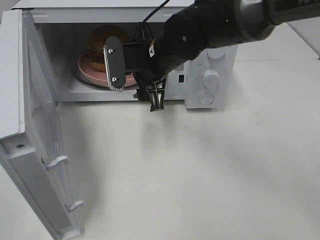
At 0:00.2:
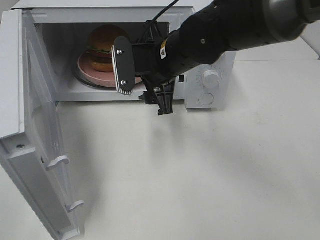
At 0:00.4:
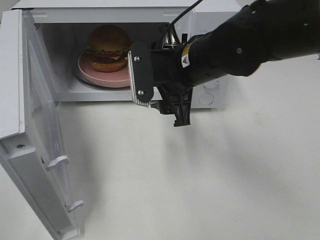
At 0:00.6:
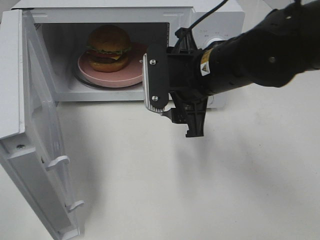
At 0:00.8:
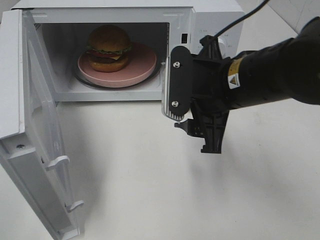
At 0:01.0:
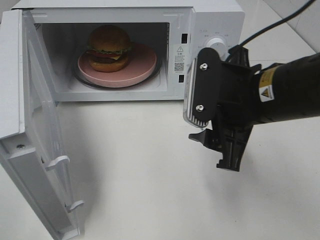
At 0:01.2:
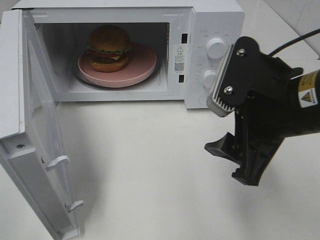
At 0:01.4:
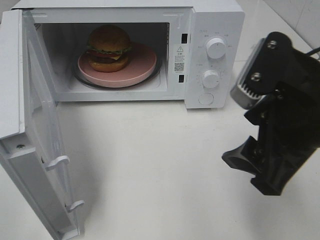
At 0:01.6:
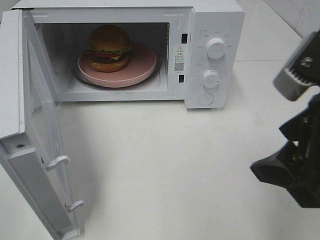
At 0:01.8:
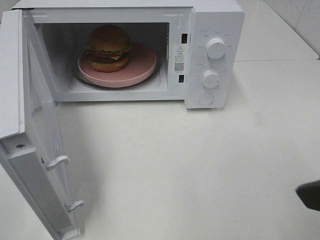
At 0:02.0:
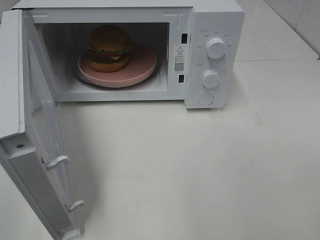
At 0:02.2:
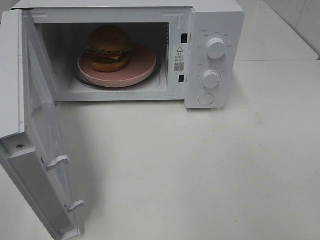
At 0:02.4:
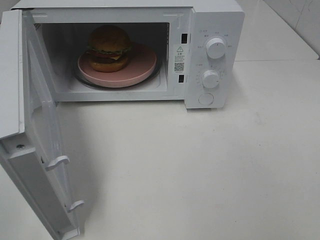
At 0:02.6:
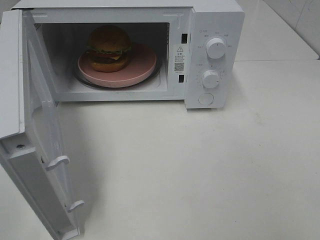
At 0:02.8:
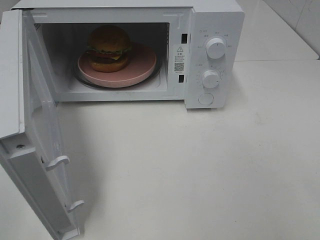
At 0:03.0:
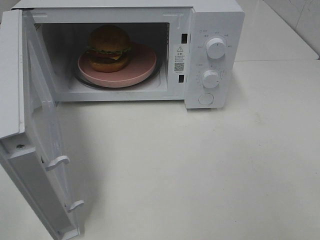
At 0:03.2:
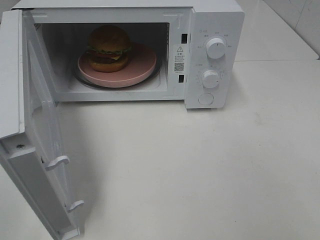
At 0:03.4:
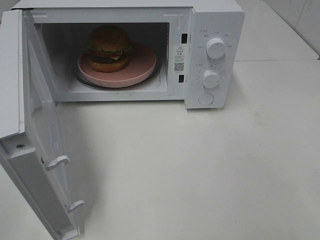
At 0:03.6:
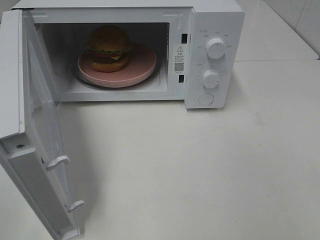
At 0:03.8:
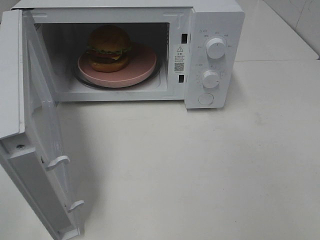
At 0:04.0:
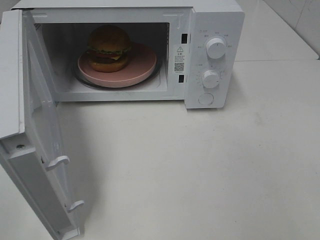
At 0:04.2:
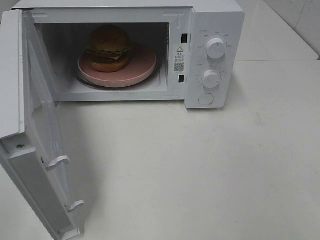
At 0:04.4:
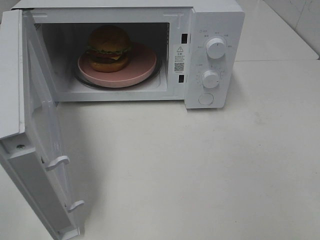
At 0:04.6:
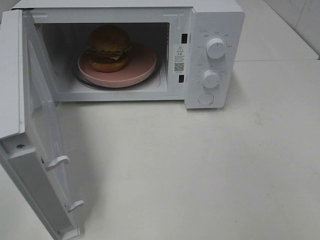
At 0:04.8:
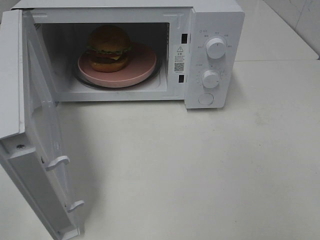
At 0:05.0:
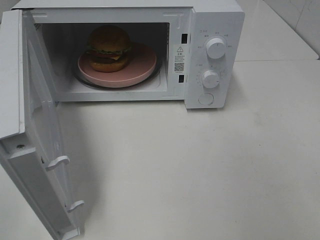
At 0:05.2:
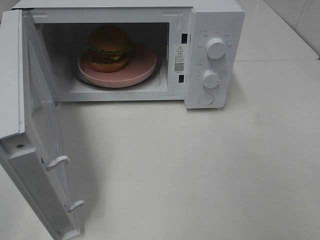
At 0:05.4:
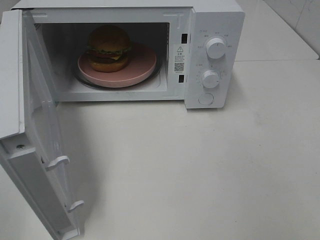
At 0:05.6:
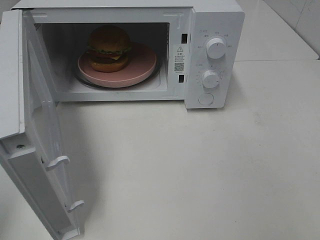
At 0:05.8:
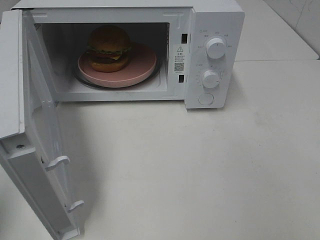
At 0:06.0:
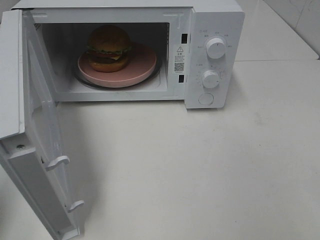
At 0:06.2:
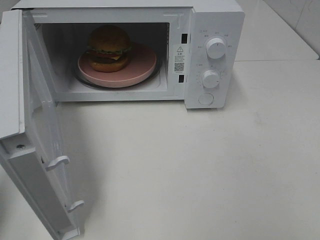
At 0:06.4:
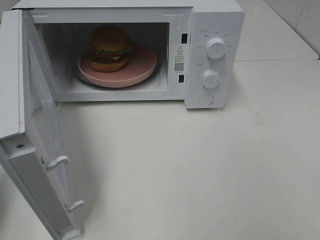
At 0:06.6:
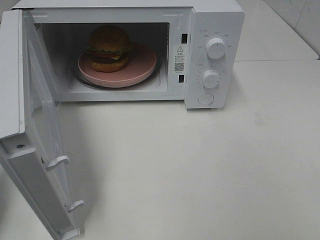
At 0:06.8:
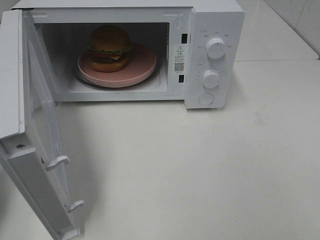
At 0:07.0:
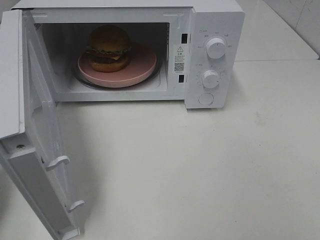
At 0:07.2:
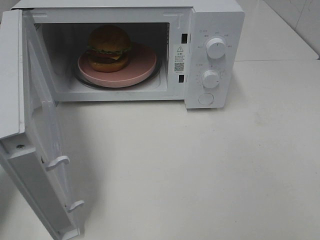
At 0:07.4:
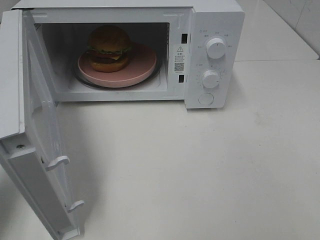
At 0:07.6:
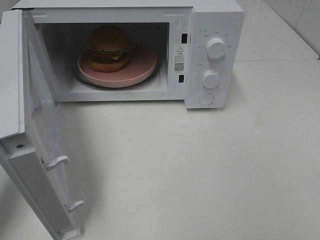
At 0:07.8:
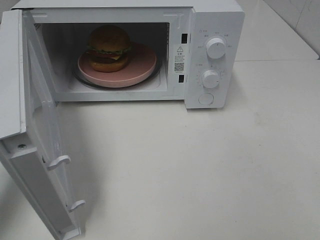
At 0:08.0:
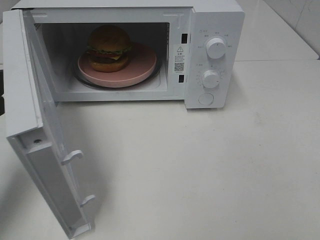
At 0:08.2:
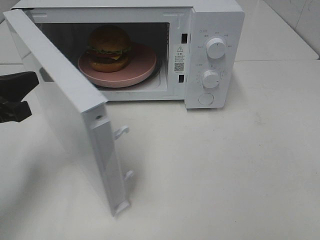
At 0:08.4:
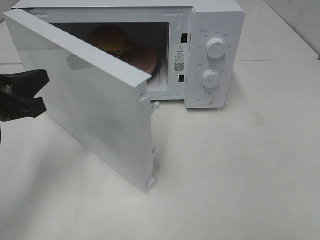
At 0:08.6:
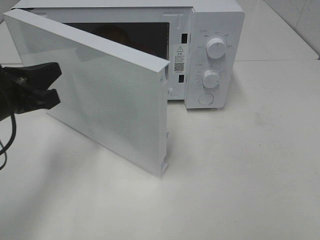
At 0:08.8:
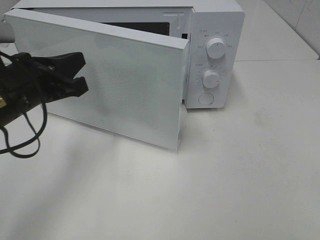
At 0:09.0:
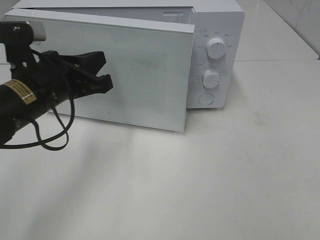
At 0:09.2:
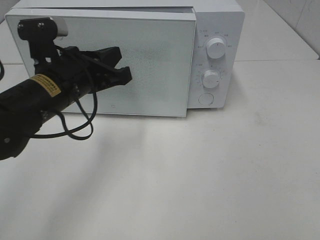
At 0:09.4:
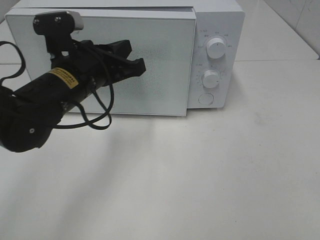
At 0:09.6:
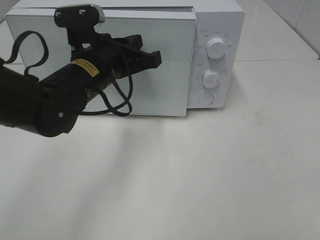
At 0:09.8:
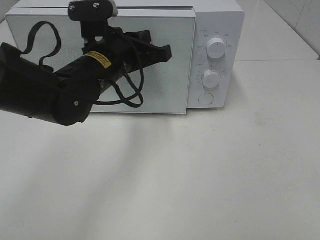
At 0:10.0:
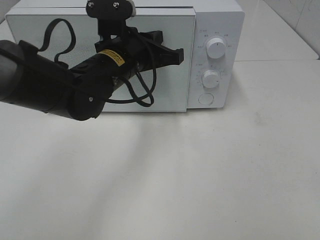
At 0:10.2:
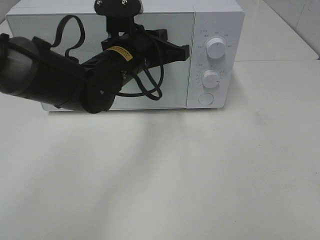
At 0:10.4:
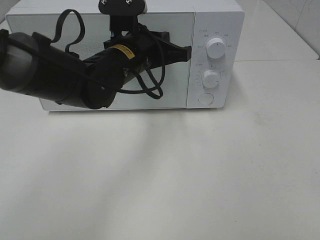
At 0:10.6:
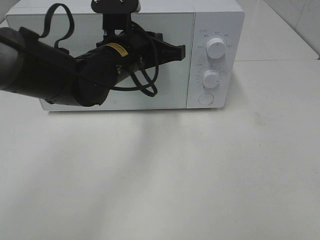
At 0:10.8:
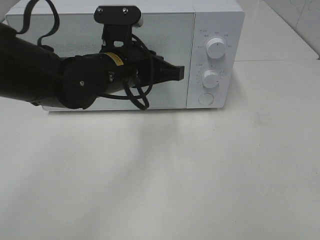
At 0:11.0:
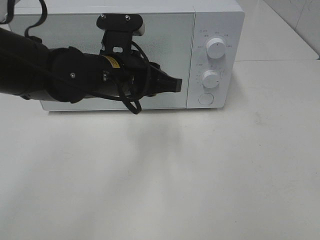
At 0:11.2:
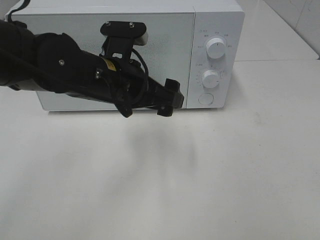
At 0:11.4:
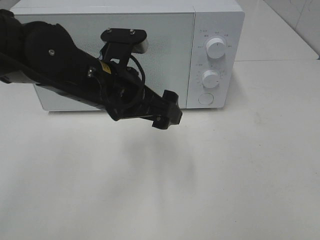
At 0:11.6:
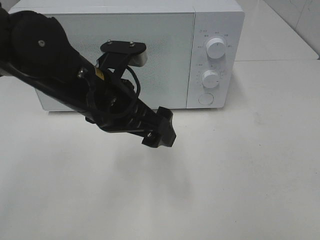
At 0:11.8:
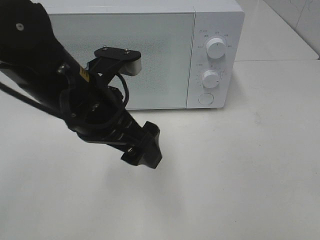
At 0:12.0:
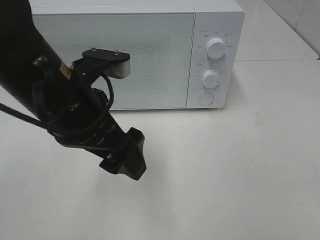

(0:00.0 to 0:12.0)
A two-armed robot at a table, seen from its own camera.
Task of the whole recording: Heat the burger.
Step, 0:00.0 - 0:10.6: Left hand: close the microwave door.
0:00.0 - 0:01.6: The right gripper goes some 30 cm backward and to the right.
0:01.6 - 0:03.0: The right gripper is displaced backward and to the right by approximately 15 cm.
0:06.0 - 0:07.6: The left gripper heads forward and downward, covering some 10 cm.
0:07.6 - 0:09.0: The left gripper travels to the right and forward by about 15 cm.
0:09.0 - 0:10.4: The left gripper goes about 15 cm to the right and forward.
0:10.4 - 0:12.0: The left gripper goes roughly 15 cm backward and to the left, and opens.

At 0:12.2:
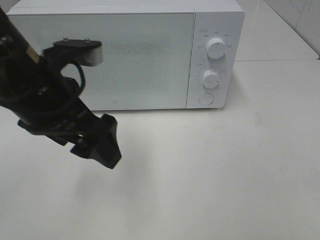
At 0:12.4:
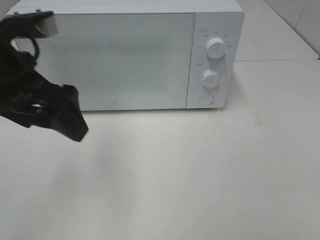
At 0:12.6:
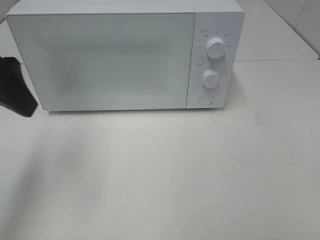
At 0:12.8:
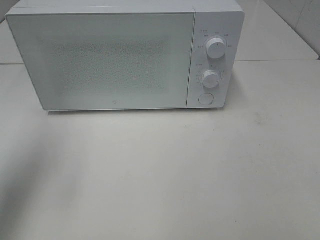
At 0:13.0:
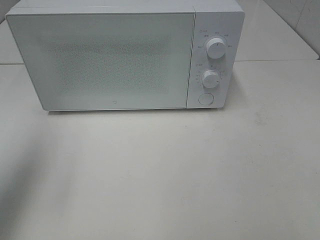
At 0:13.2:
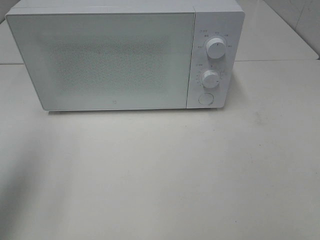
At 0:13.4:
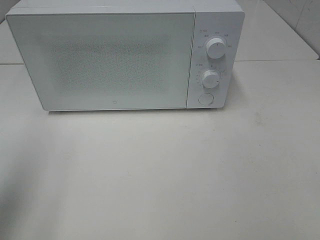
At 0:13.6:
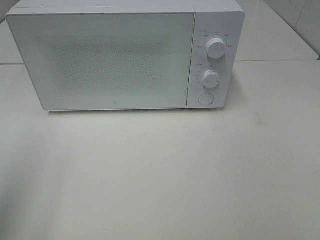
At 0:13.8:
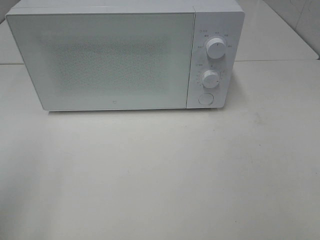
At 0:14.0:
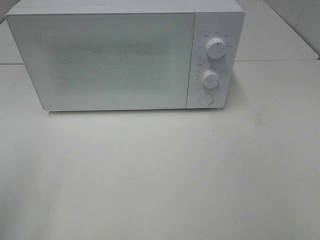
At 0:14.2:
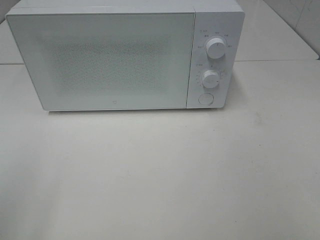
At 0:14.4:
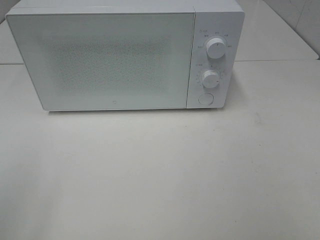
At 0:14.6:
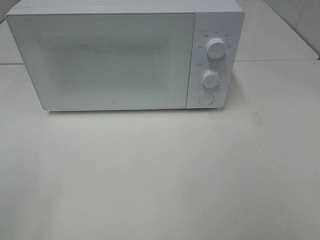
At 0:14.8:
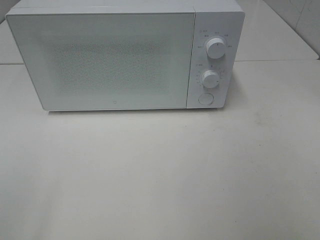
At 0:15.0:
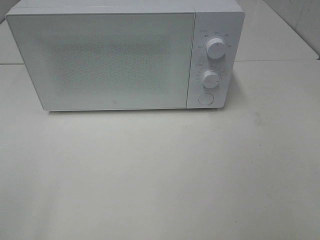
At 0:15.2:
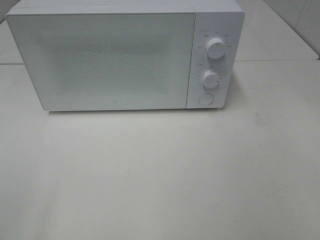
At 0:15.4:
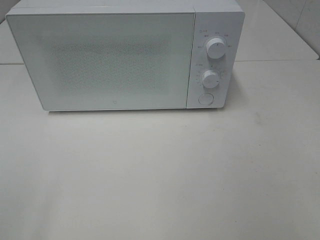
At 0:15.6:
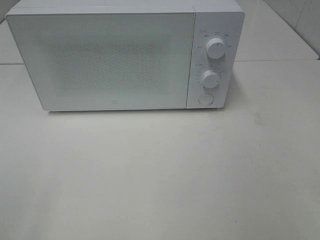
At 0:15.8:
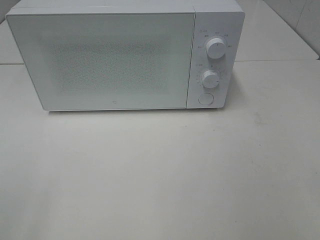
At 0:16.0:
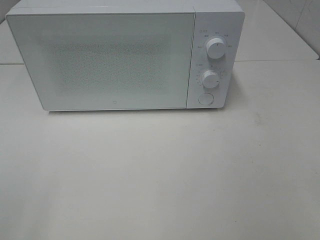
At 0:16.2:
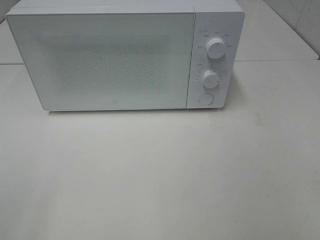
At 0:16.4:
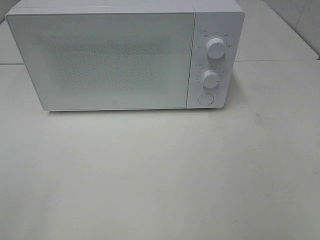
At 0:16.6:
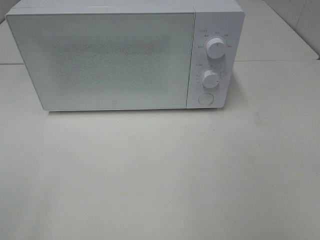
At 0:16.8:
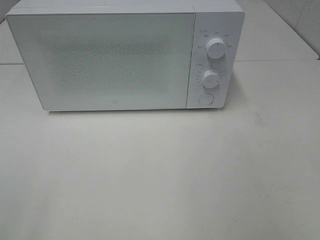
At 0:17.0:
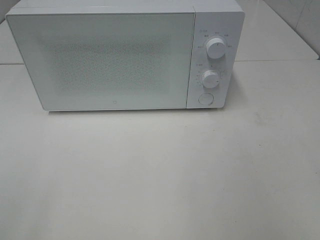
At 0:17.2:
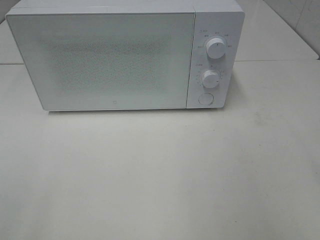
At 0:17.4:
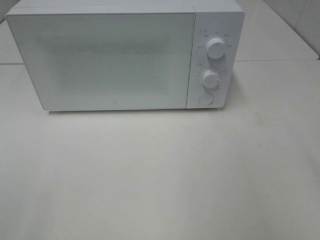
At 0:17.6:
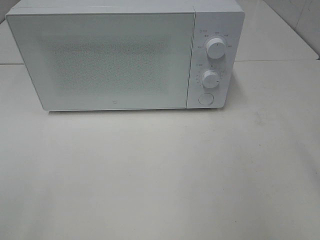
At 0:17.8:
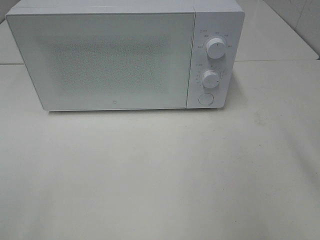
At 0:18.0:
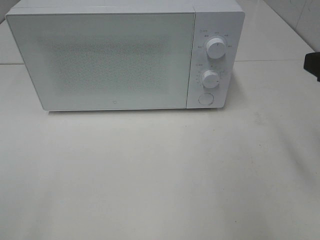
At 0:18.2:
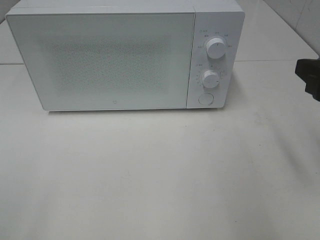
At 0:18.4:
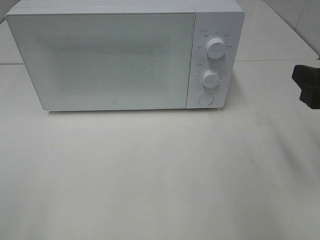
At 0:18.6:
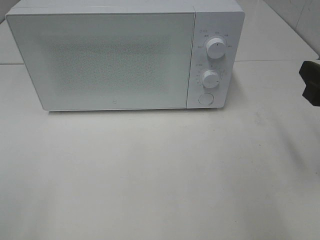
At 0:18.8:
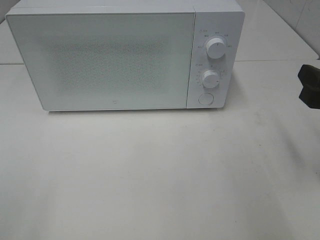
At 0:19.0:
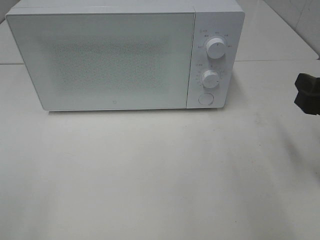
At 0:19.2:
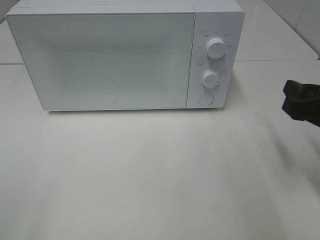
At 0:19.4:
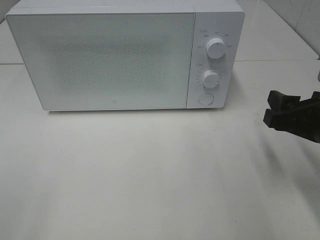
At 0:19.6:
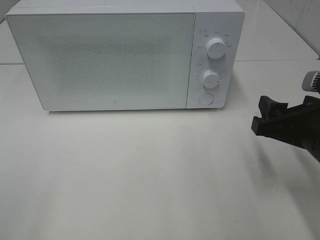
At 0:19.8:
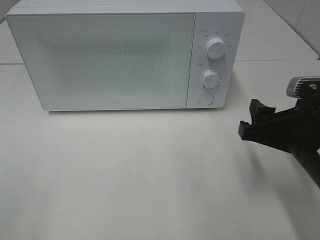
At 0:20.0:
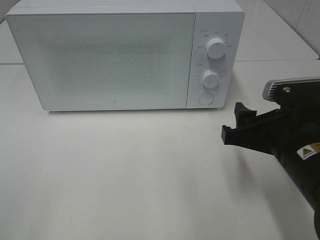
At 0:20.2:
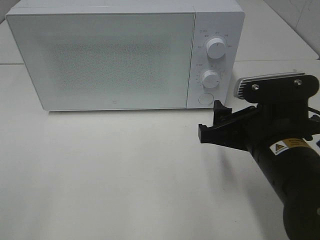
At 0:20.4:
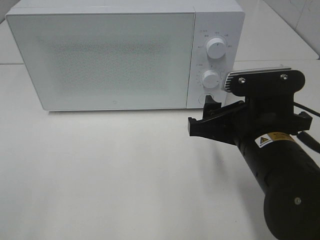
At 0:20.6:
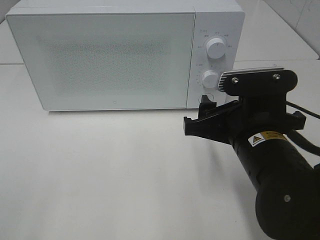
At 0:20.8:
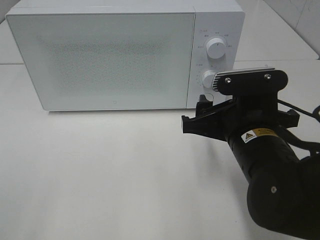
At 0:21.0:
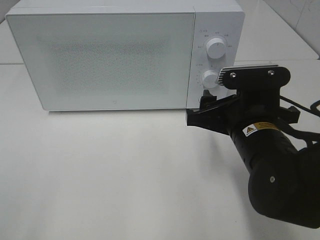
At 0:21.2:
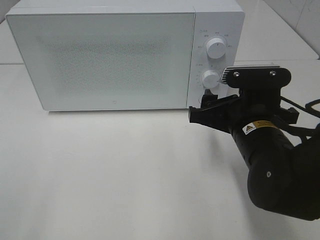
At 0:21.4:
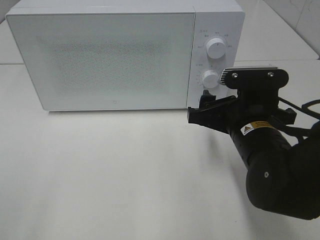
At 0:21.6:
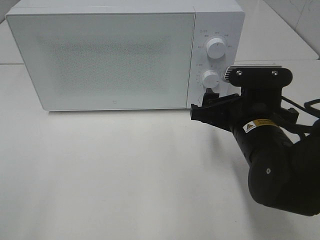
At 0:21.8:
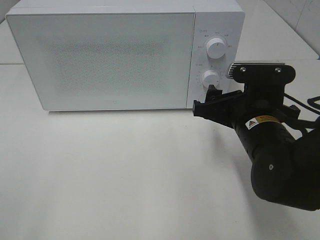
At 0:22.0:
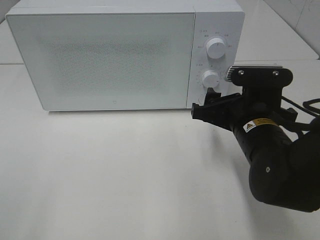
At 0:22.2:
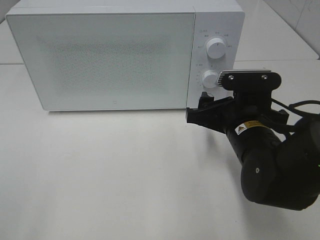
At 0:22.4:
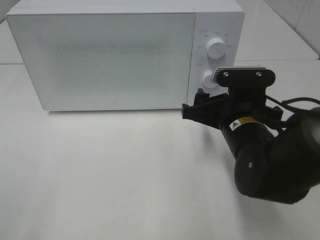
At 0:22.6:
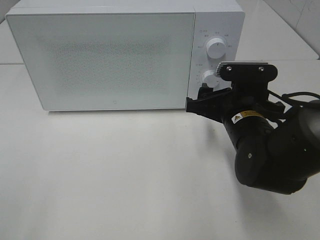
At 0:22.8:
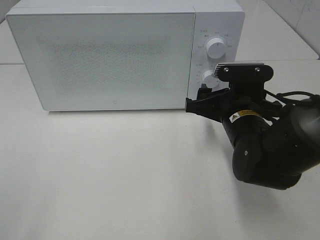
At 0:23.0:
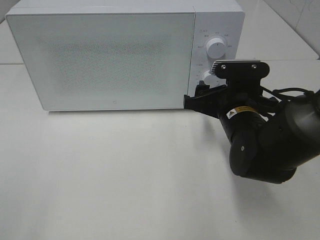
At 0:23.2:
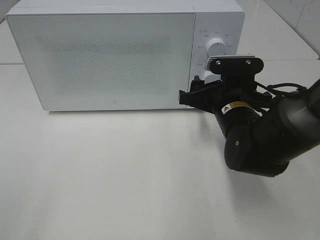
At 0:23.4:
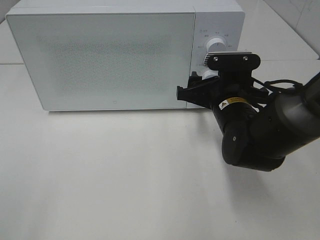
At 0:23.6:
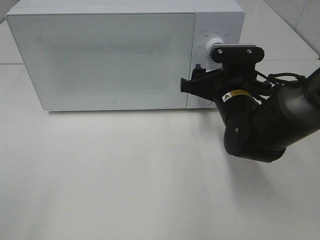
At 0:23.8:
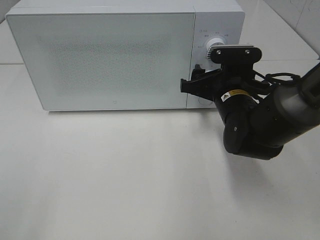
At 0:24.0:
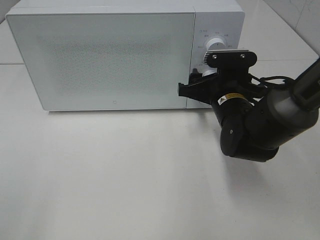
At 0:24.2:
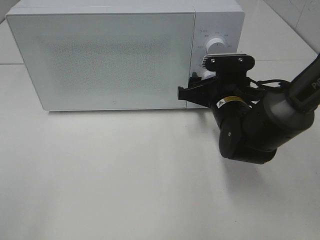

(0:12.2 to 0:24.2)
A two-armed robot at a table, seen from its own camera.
Task of the whole recording: Heat the burger.
0:12.2 - 0:13.8: The left gripper moves to the left and backward, roughly 20 cm.
0:16.6 - 0:18.2: The right gripper shifts roughly 15 cm forward.
0:18.2 - 0:19.8: The right gripper is displaced downward and to the left by some 10 cm.
0:19.8 - 0:21.2: The right gripper heads to the left and forward, covering roughly 10 cm.
0:21.2 - 0:22.6: The grippers move only a little.
0:22.6 - 0:24.2: The right gripper heads forward, covering some 5 cm.
